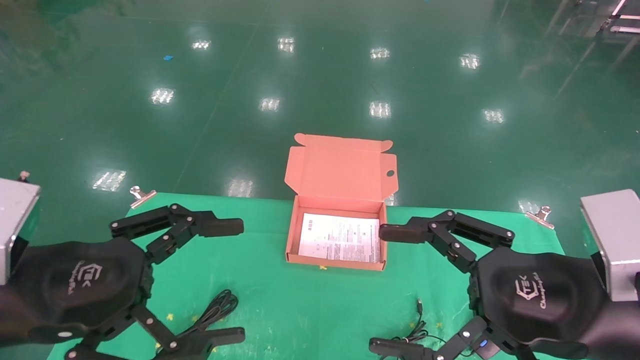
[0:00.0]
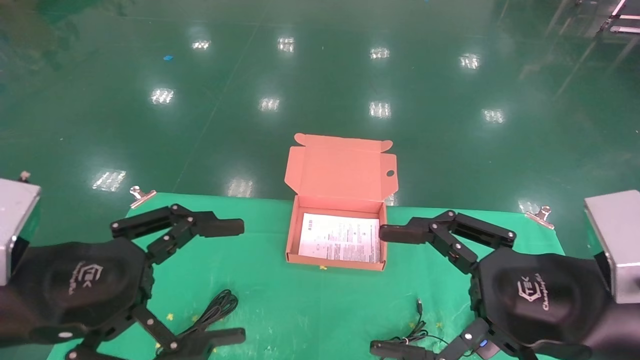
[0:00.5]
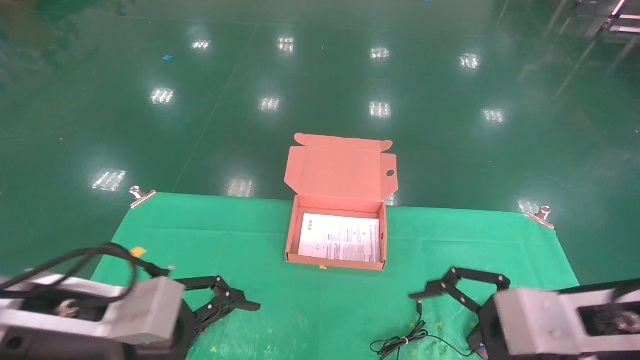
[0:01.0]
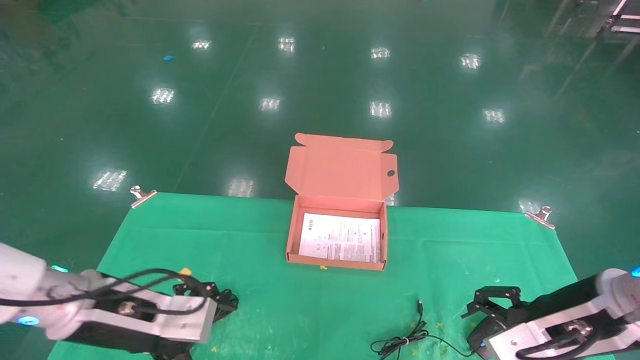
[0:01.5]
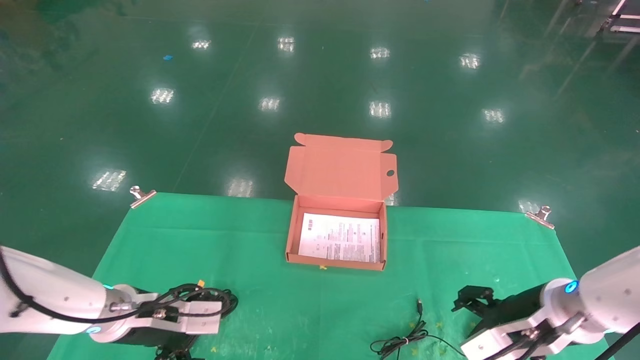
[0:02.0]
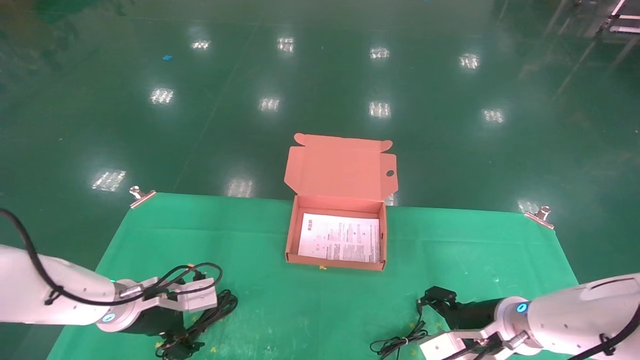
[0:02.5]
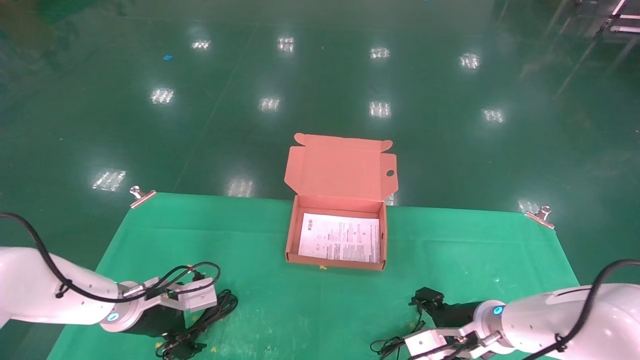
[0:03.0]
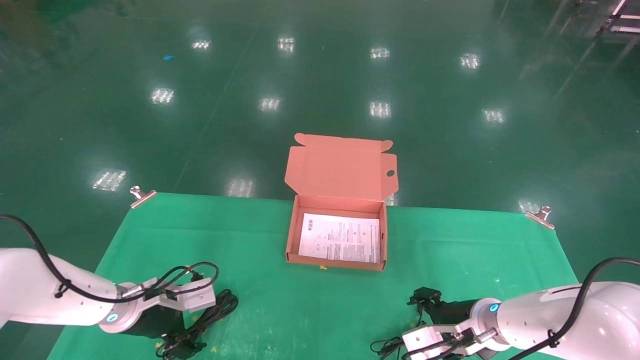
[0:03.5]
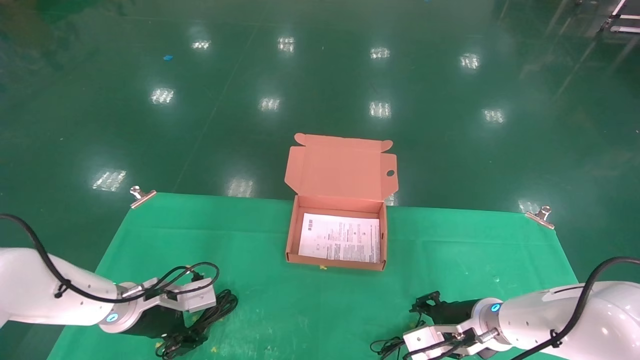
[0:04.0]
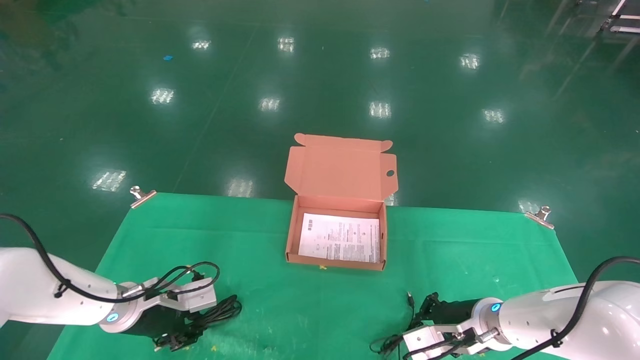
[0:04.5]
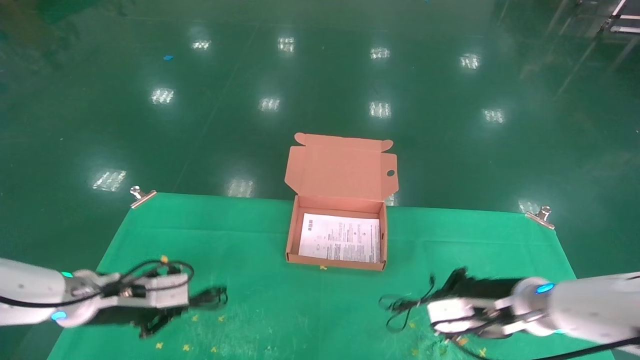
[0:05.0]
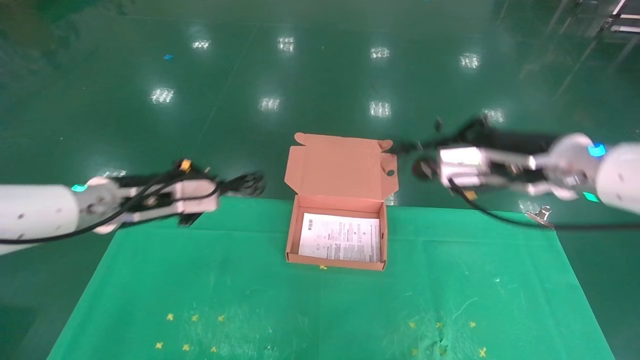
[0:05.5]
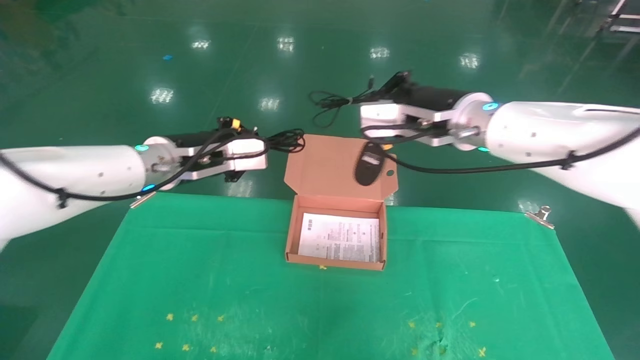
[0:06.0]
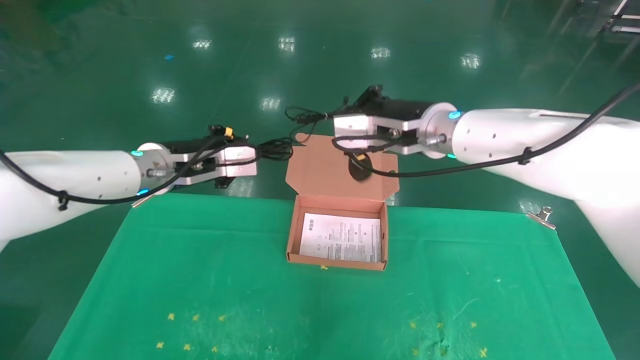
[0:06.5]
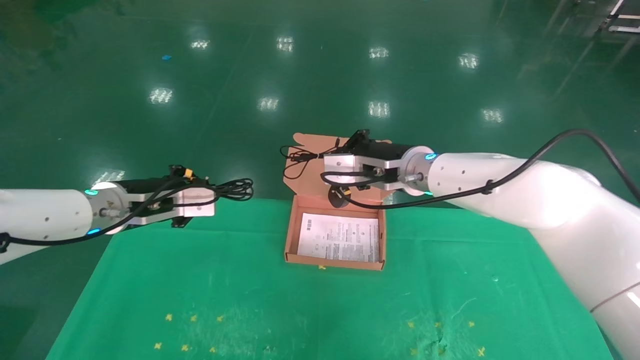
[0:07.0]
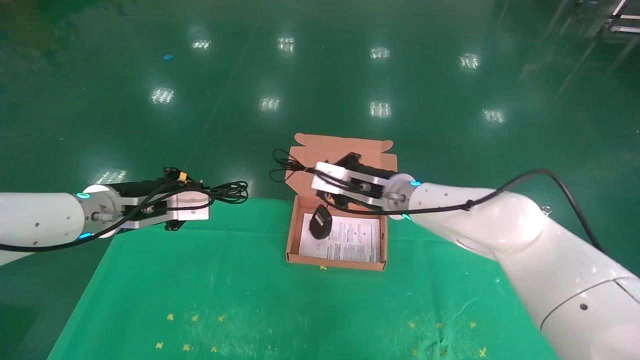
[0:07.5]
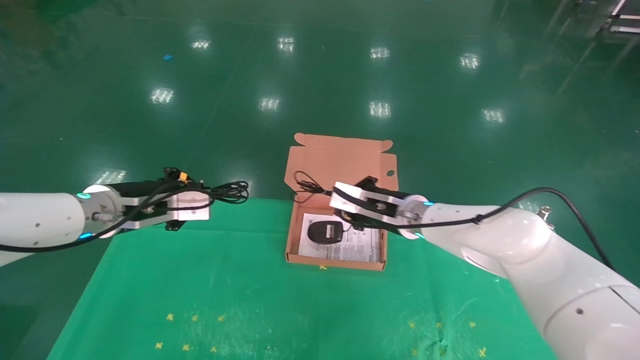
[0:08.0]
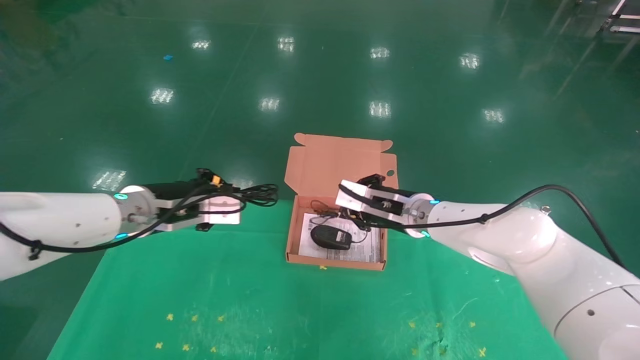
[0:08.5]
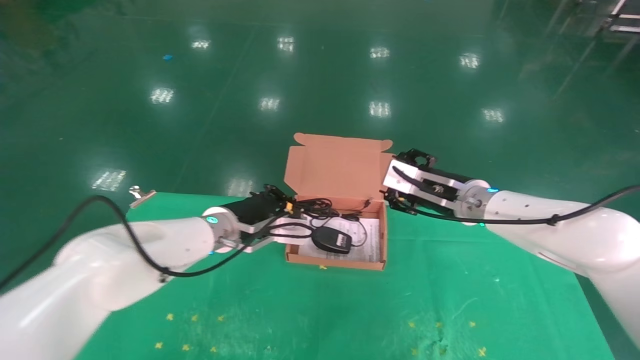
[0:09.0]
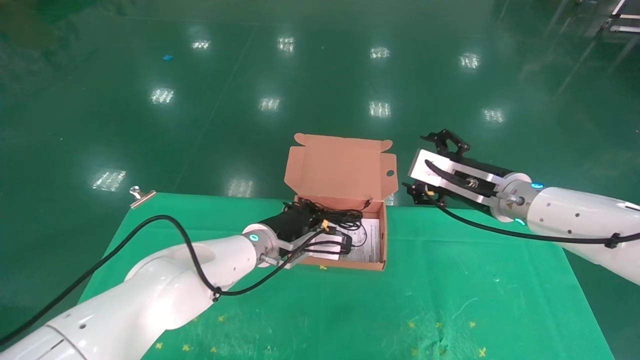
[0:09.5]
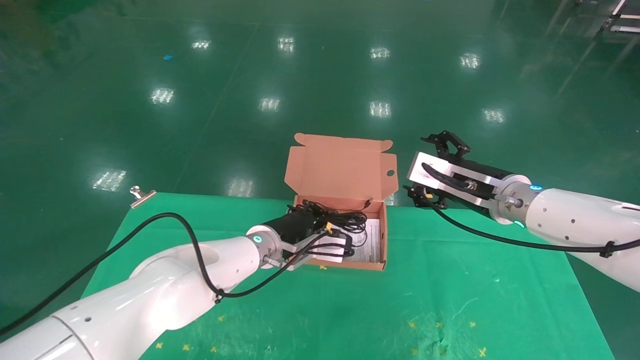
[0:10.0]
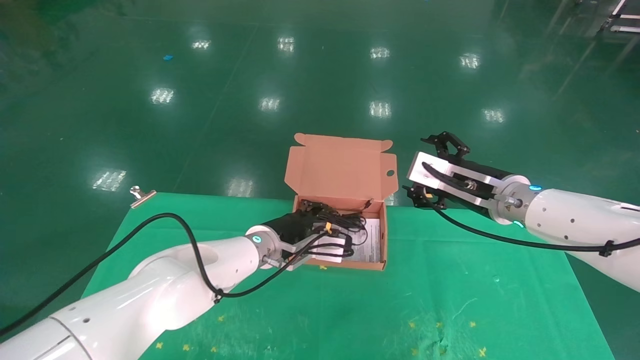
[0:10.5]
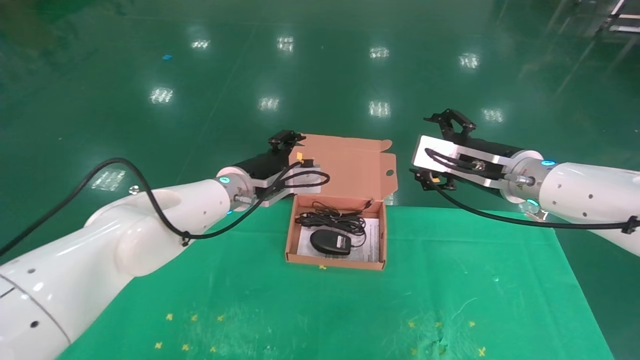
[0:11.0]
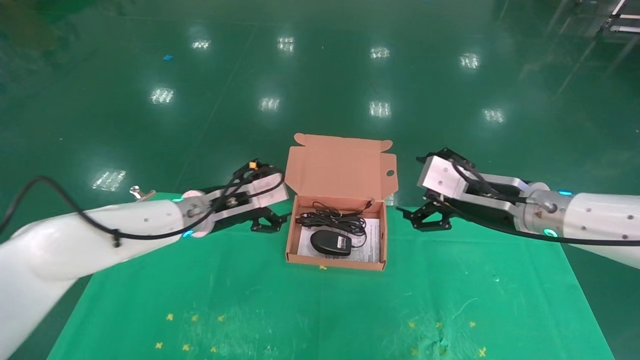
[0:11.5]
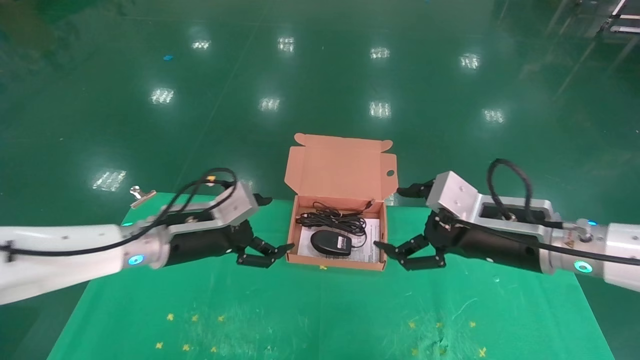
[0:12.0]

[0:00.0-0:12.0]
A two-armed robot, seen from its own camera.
Task of the whole recording: grasp data cable left put into box grasp mouse right put into box.
Step, 0:01.0 to 0:04.5: Grab and pick up both the mouse and power cord from the accessory packaging area at the same time.
Step, 0:05.0 to 0:10.0: Place the mouse and power cord into the box.
0:00.0 to 0:02.0: Both grippers move forward and downward, some 20 cm.
0:02.0 to 0:04.0: The left gripper changes place by some 5 cm. The right gripper shifts approximately 10 cm downward and forward, and closes.
0:04.0 to 0:06.0: Both grippers travel together upward, some 25 cm. The left gripper closes. The right gripper closes.
0:06.0 to 0:08.0: The right gripper heads downward and forward, covering approximately 15 cm, while the left gripper moves to the left and downward, approximately 10 cm.
0:08.0 to 0:10.0: The right gripper moves to the right, backward and upward, about 15 cm, and opens up. The left gripper goes about 25 cm to the right and downward.
0:10.0 to 0:12.0: The right gripper moves backward, some 10 cm. The left gripper goes approximately 15 cm to the left and backward, and opens.

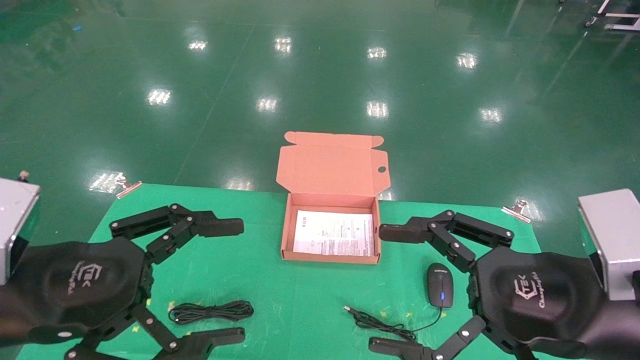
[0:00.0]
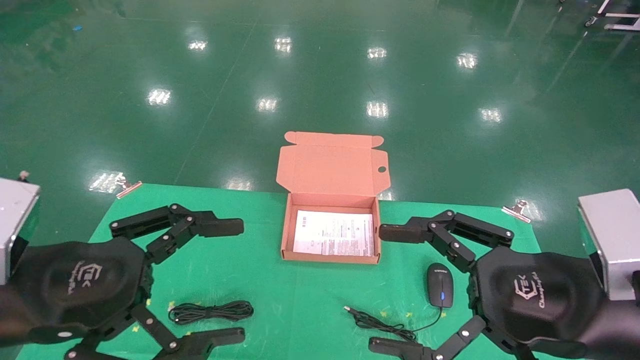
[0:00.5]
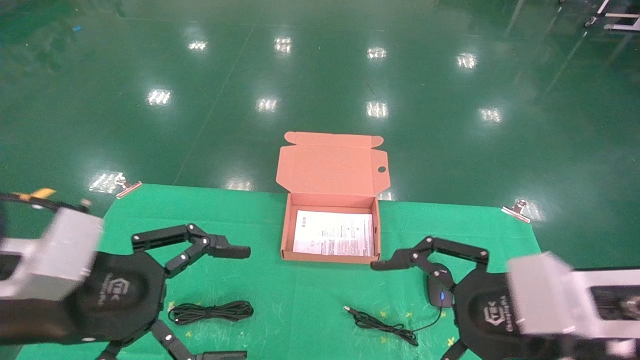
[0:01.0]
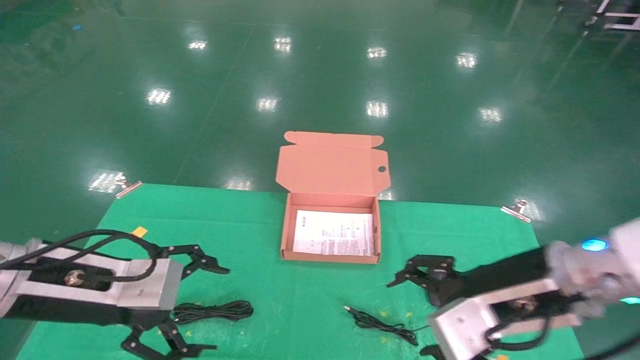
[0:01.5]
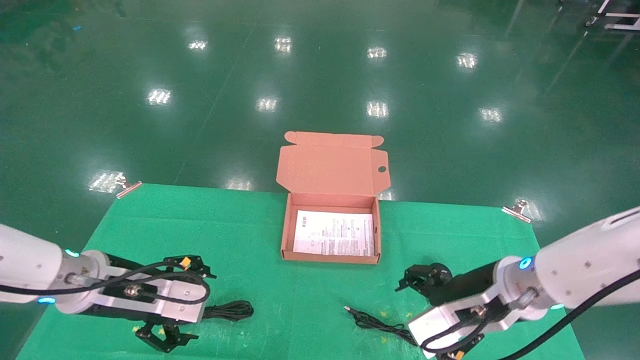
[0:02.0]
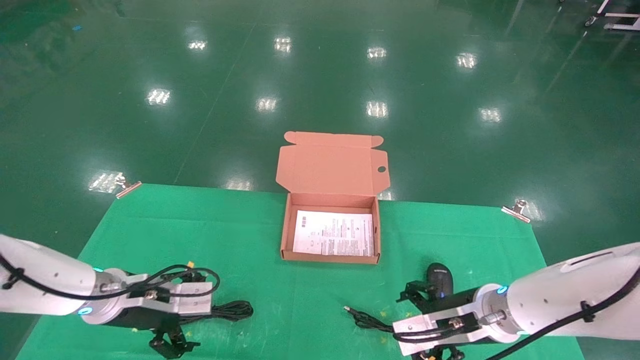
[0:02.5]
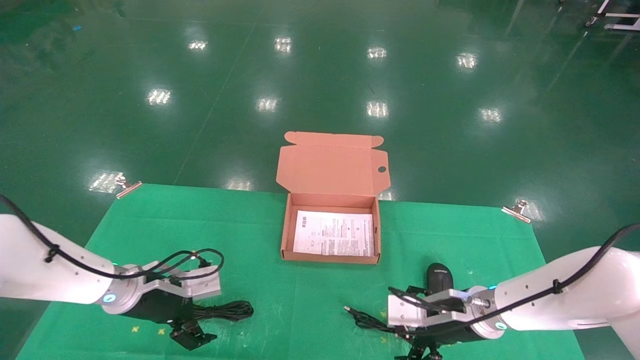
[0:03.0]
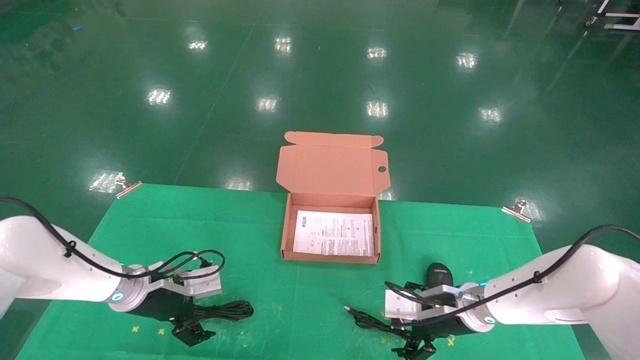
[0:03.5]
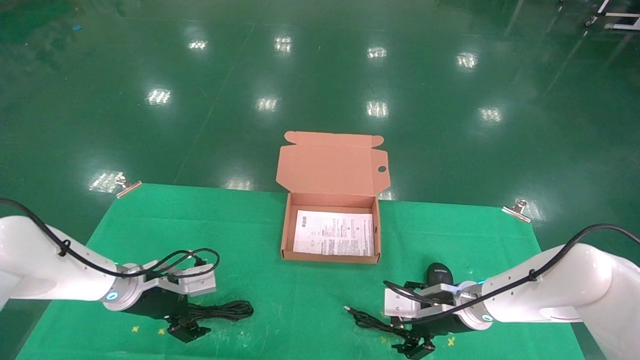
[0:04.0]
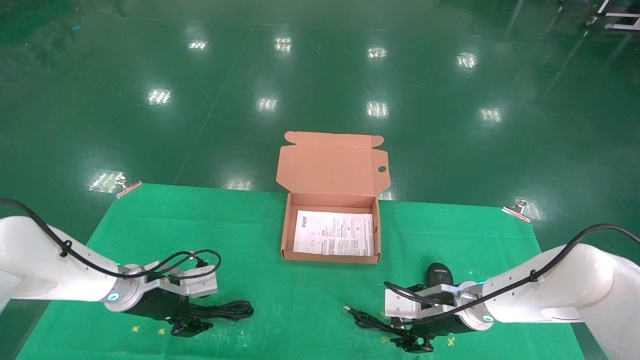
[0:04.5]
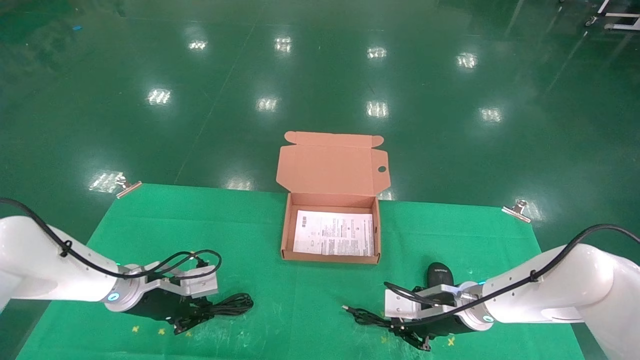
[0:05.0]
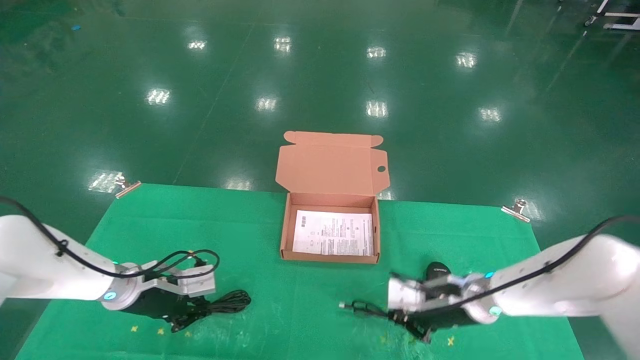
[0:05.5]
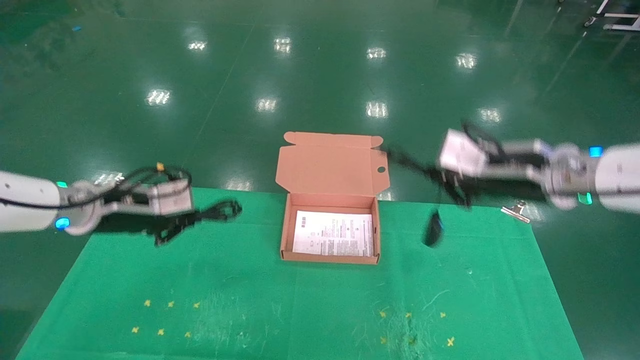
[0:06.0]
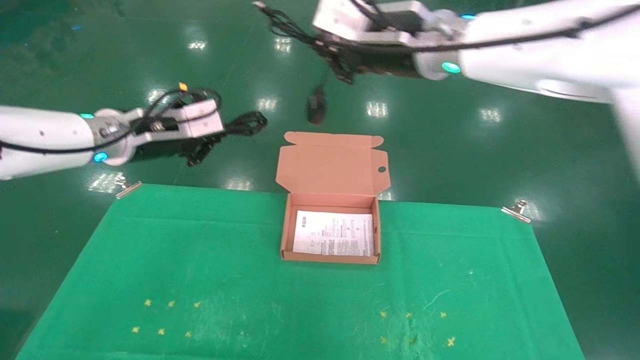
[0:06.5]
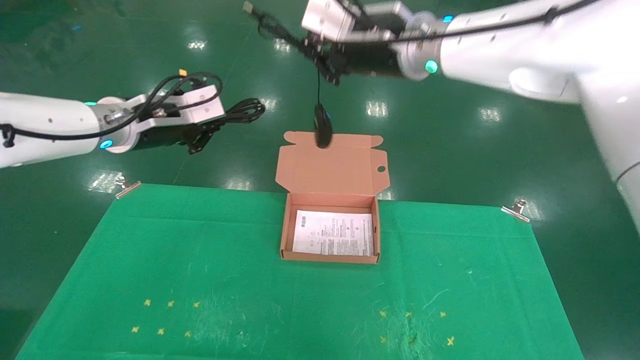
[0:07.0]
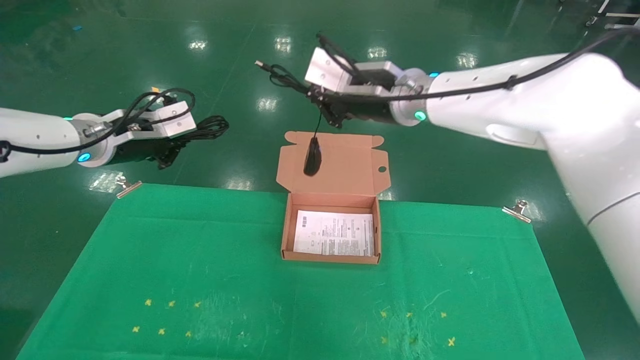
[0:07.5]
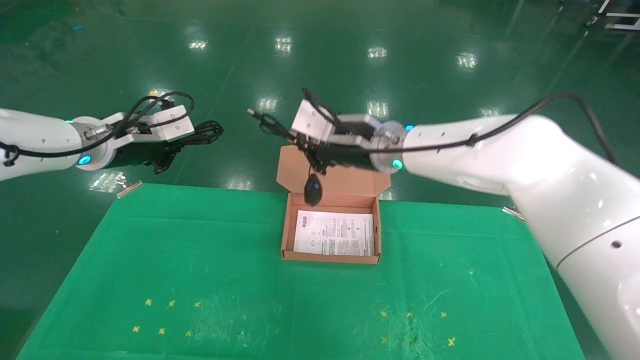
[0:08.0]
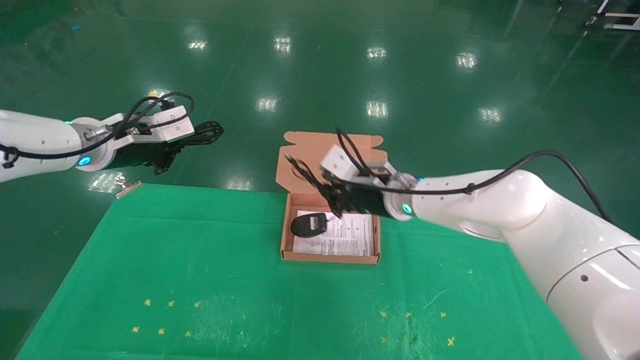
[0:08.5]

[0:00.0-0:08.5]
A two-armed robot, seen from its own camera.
Task of the whole recording: grasp data cable left put into box grasp mouse right put into box.
Step, 0:01.0 to 0:05.0: Grab and pick up both the mouse and power cord from the accessory packaging area at the same time.
0:00.0 to 0:02.0: The two grippers go some 15 cm forward and downward.
0:02.0 to 0:04.0: The left gripper heads forward and downward, covering about 15 cm. The right gripper heads downward and forward, covering roughly 15 cm.
0:04.0 to 0:06.5: The right gripper shifts some 35 cm upward, and closes up, while the left gripper moves upward, some 25 cm, and closes.
0:06.5 to 0:08.5: The right gripper heads downward, covering about 20 cm.
